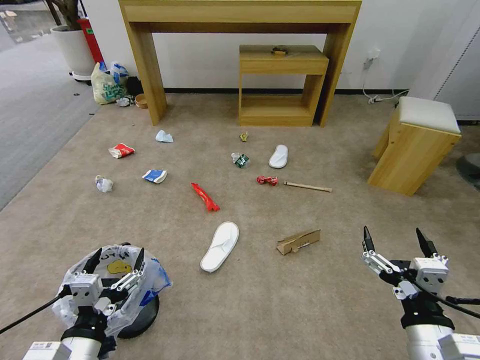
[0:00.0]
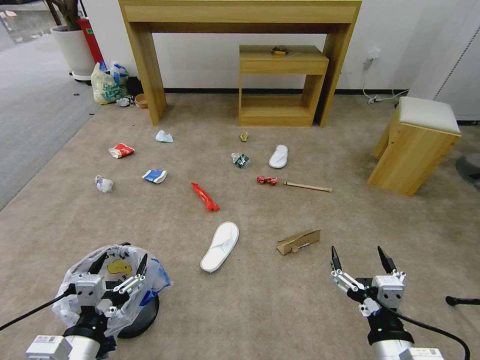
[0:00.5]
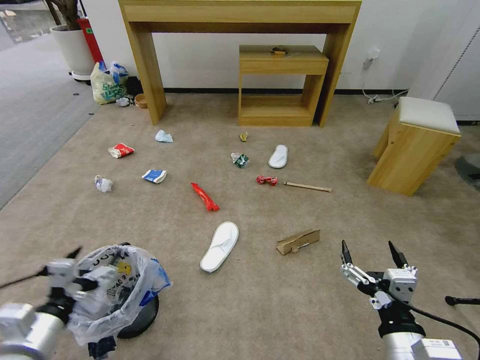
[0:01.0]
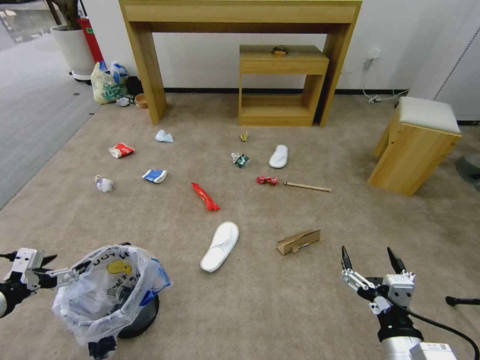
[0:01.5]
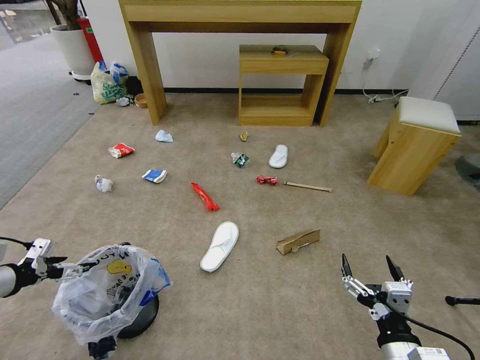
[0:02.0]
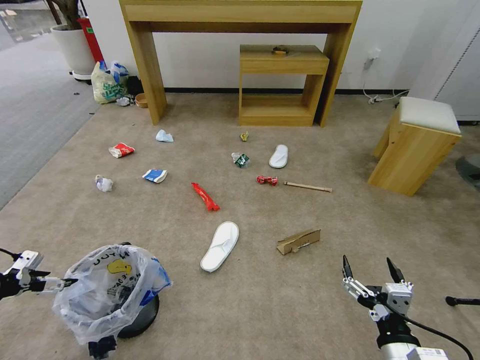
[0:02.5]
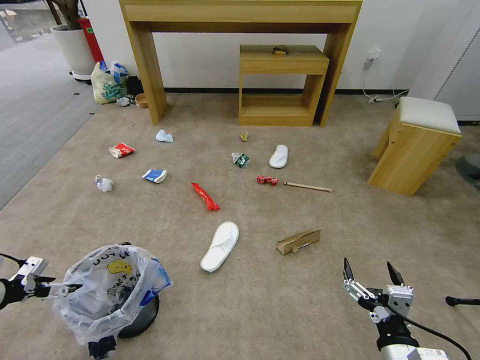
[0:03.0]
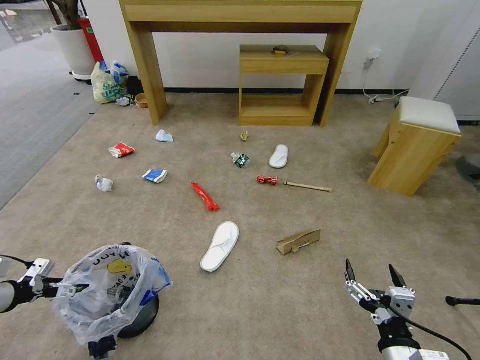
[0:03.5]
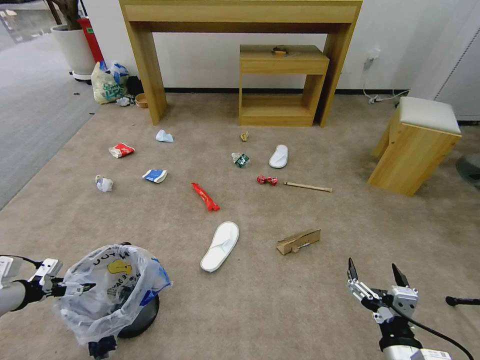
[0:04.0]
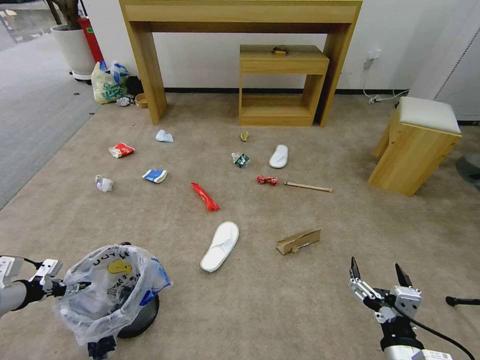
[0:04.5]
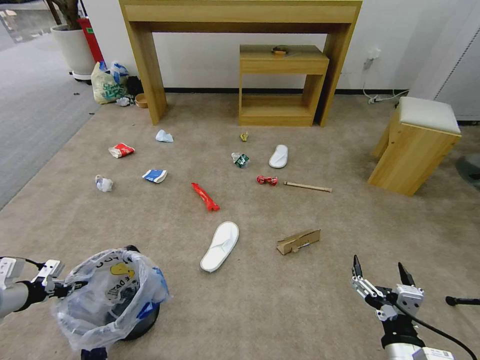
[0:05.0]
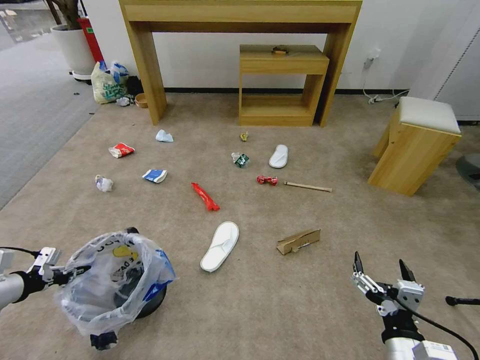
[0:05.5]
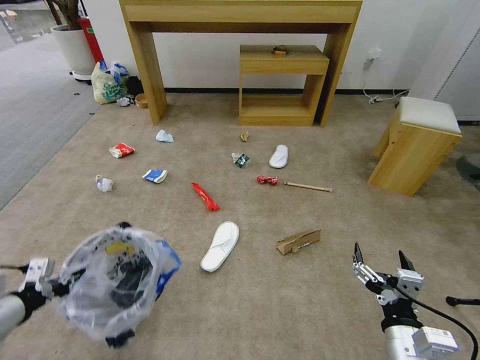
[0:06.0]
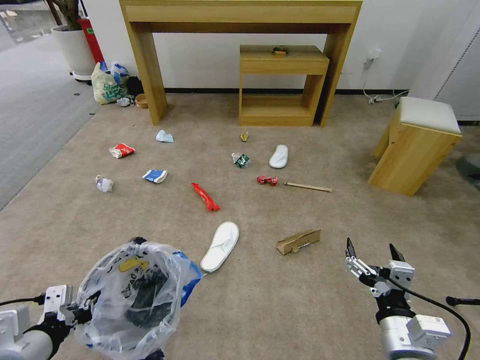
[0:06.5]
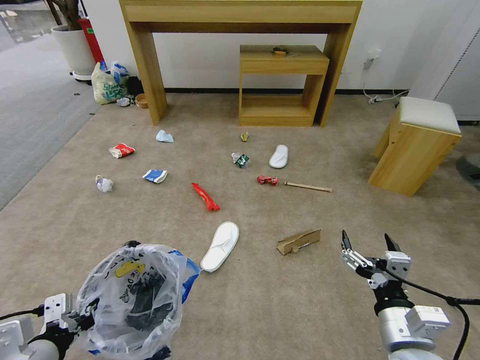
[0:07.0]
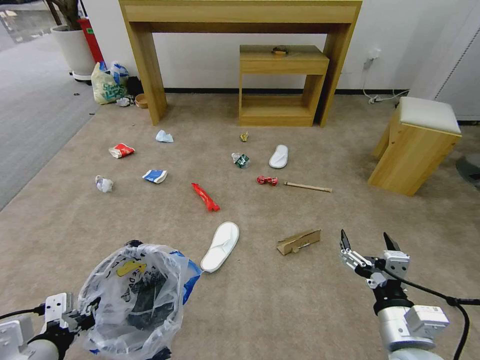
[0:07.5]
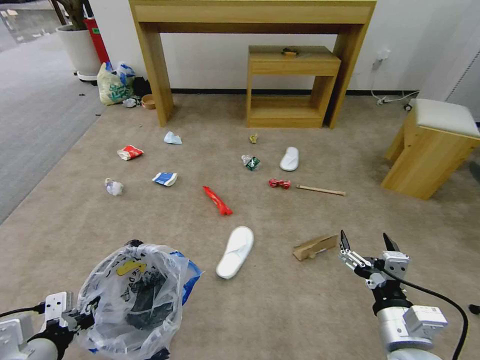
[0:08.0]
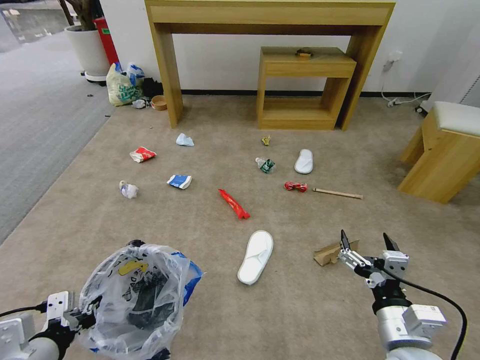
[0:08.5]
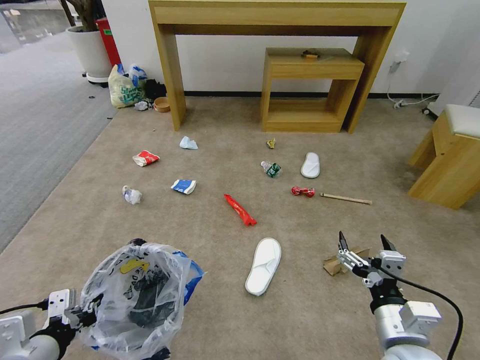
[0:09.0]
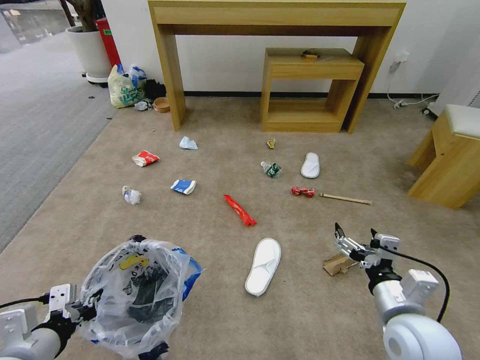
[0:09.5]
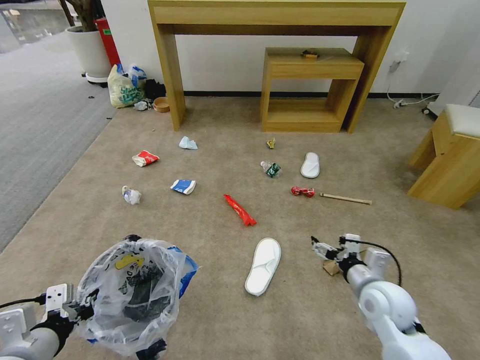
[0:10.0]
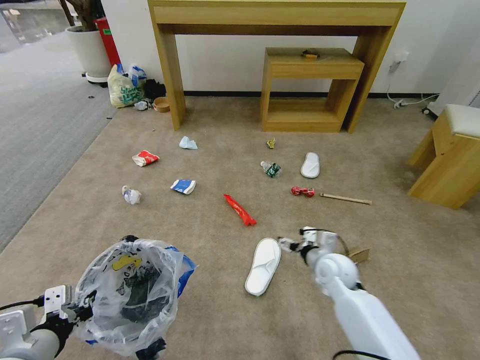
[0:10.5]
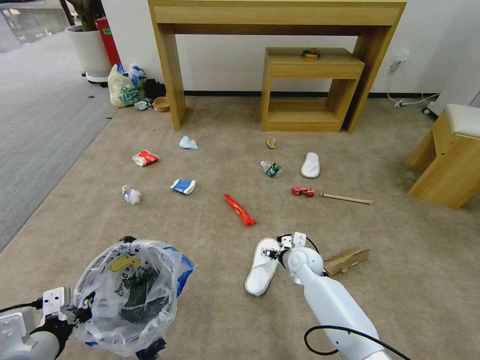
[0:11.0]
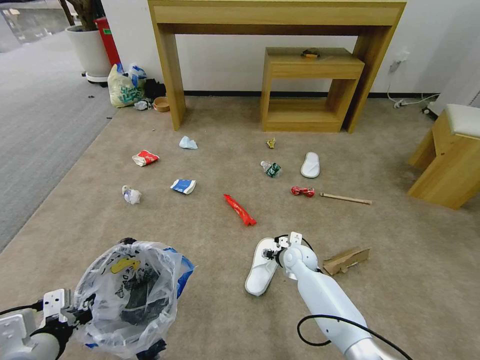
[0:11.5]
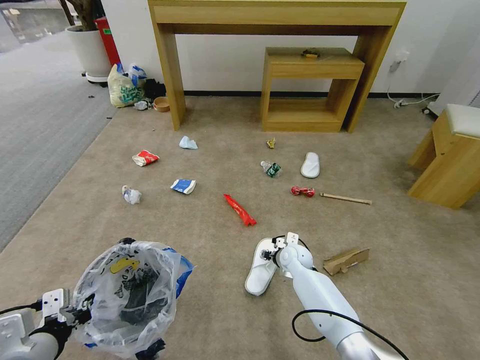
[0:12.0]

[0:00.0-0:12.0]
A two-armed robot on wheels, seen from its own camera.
Task of the whole recording: Pick up the trash bin and place the garbage on the floor into it.
0:02.0 to 0:04.0: The left gripper travels downward by approximately 5 cm.
0:04.0 to 0:06.0: The left gripper goes about 10 cm to the right and backward, and closes up.
0:06.0 to 0:08.0: The left gripper moves to the right and backward, about 15 cm.
0:08.0 to 0:10.0: The right gripper is displaced forward by approximately 15 cm.
0:10.0 to 0:12.0: The right gripper moves forward, downward and to the left, approximately 25 cm, and closes up.

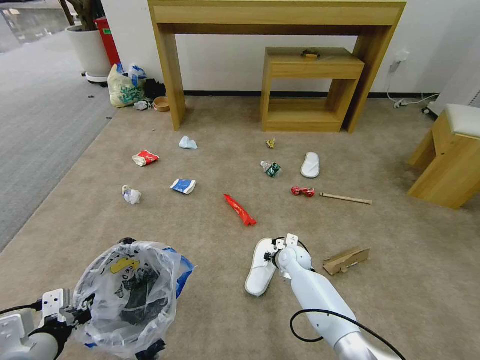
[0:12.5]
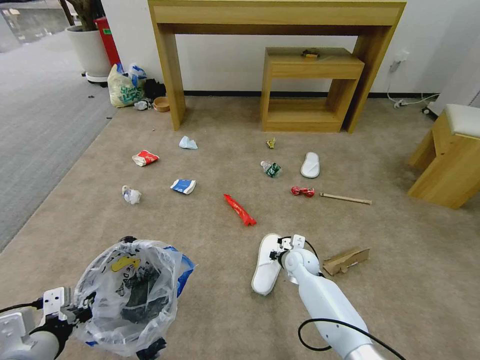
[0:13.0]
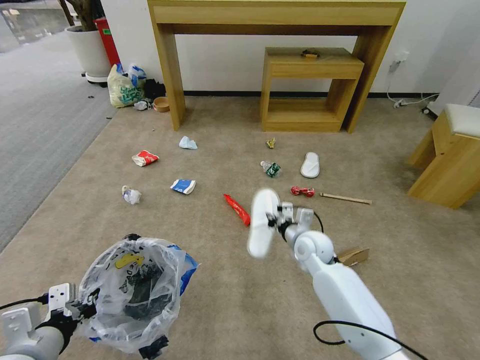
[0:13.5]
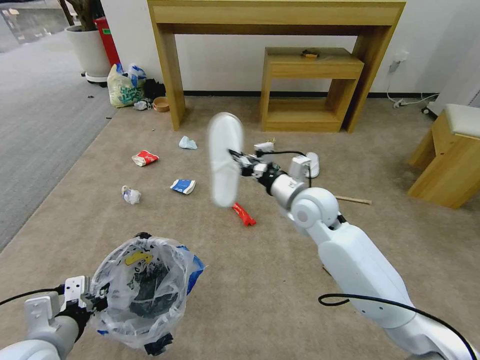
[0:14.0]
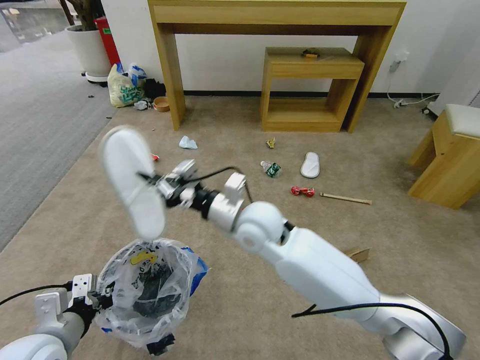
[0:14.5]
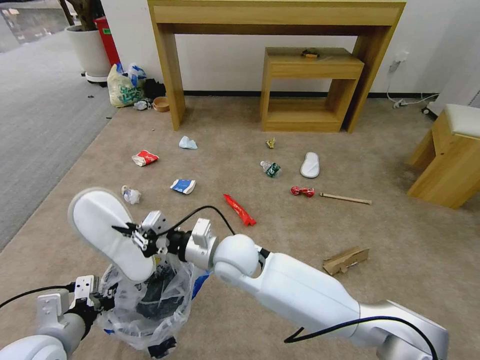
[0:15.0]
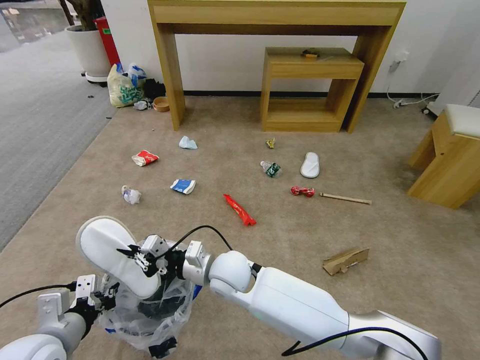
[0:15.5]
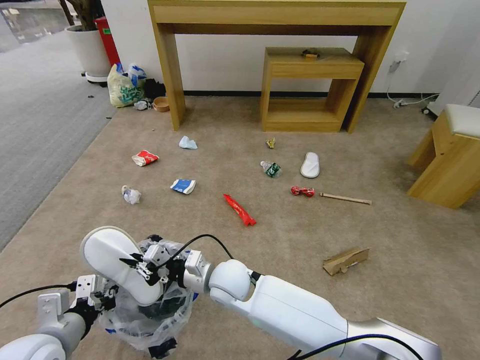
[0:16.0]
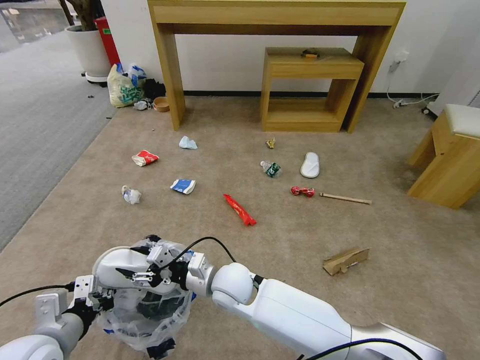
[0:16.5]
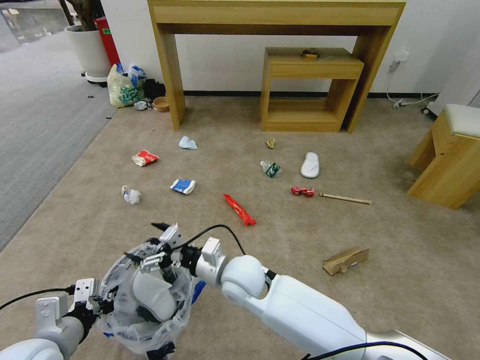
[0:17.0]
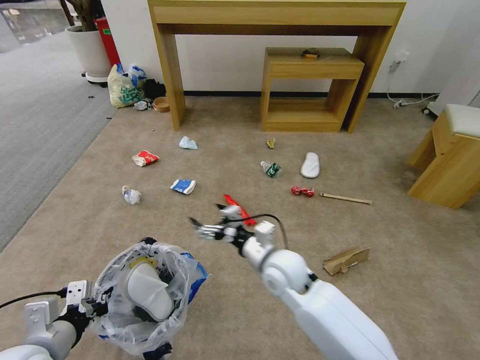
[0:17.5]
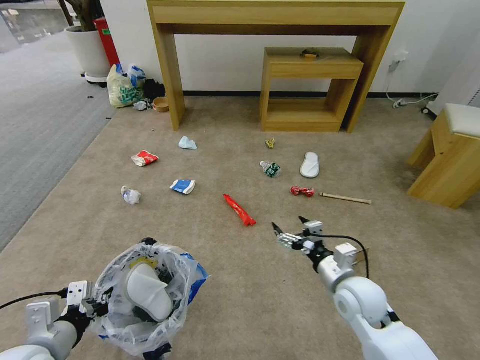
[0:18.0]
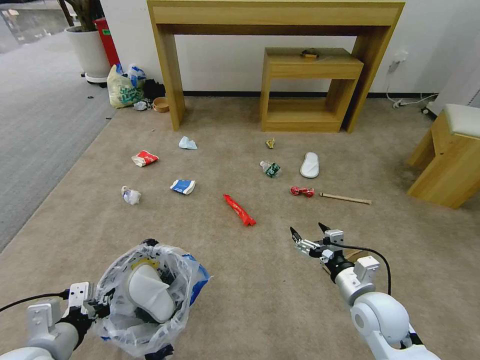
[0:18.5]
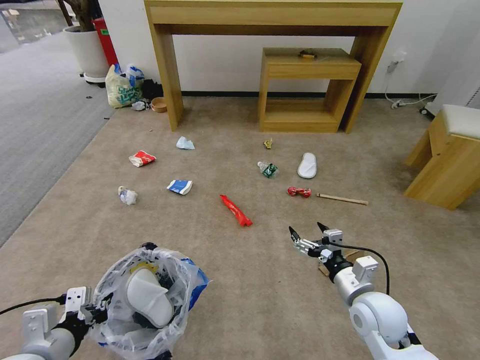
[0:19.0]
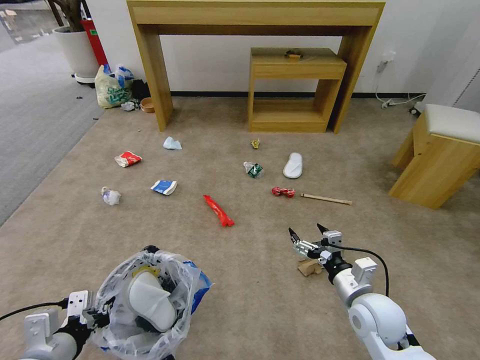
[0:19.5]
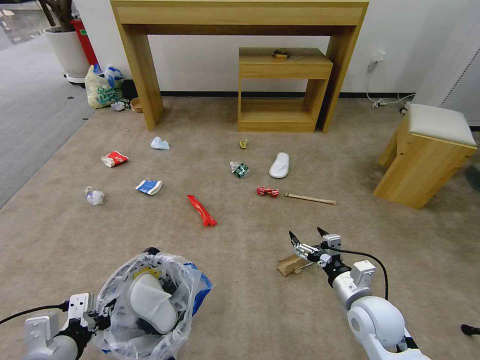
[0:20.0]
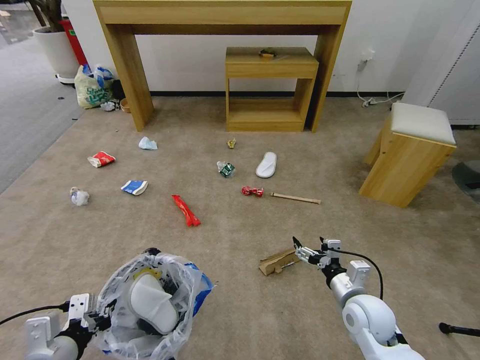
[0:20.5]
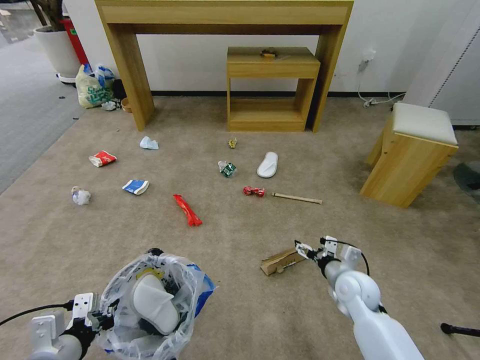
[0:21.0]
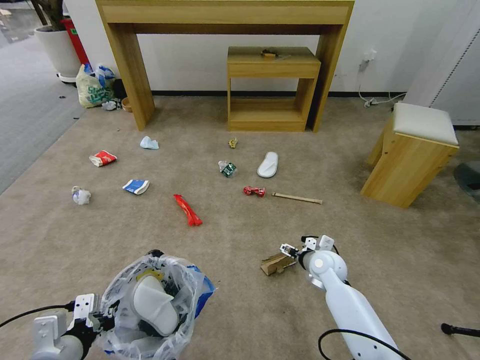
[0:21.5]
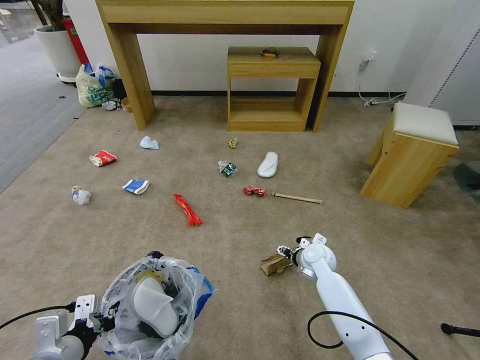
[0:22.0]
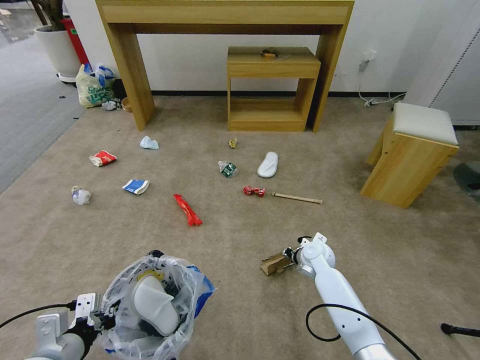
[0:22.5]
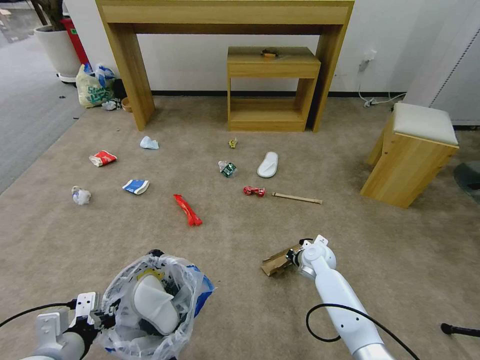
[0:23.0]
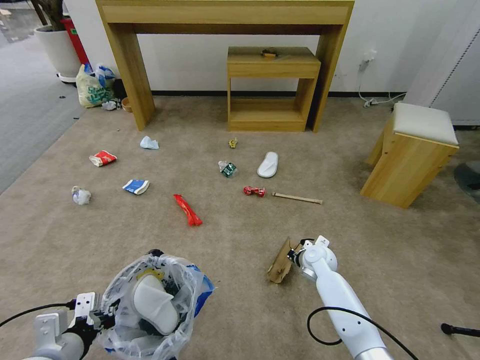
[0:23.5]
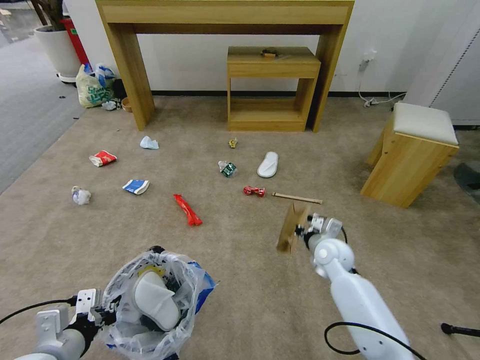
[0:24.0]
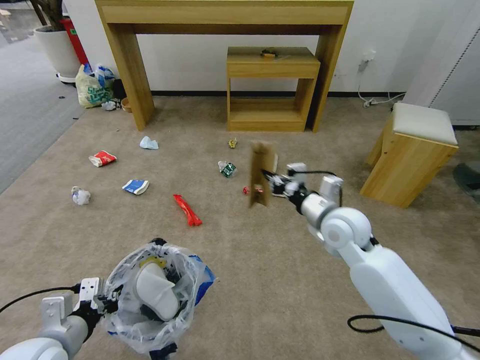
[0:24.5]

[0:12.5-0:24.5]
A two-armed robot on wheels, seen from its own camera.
Task of the whole recording: Pick up the trash bin and place the garbage on the floor into it.
0:12.5 to 0:14.5: The right gripper heads upward and to the left, covering approximately 30 cm.
0:14.5 to 0:16.5: The right gripper heads downward and backward, covering about 15 cm, and opens.
0:16.5 to 0:18.5: The right gripper goes some 30 cm to the right, and opens its fingers.
0:20.5 to 0:22.5: The right gripper goes some 20 cm forward, and closes up.
0:22.5 to 0:24.5: The right gripper goes about 20 cm upward, and closes.

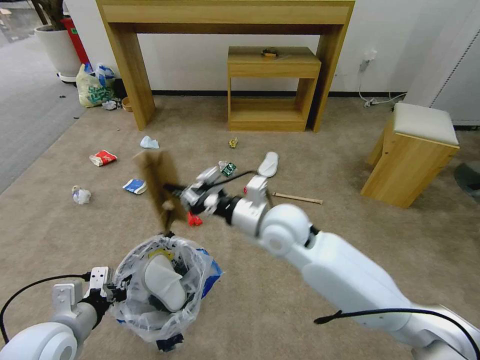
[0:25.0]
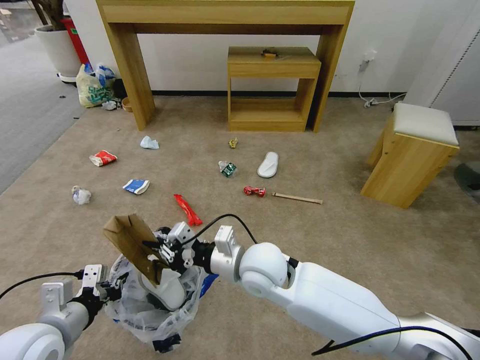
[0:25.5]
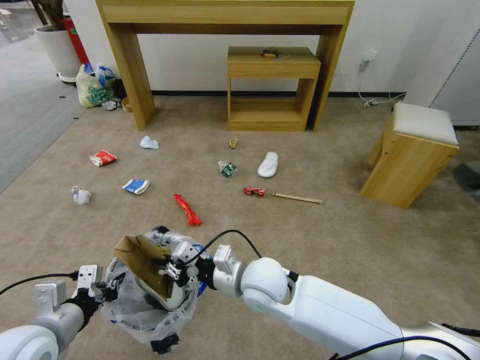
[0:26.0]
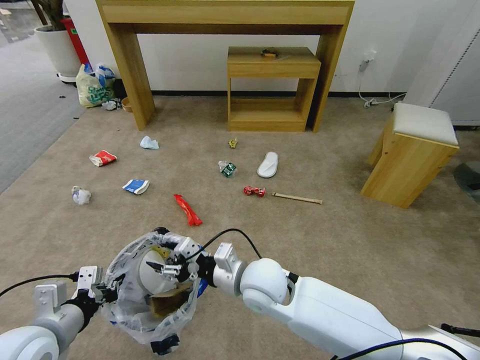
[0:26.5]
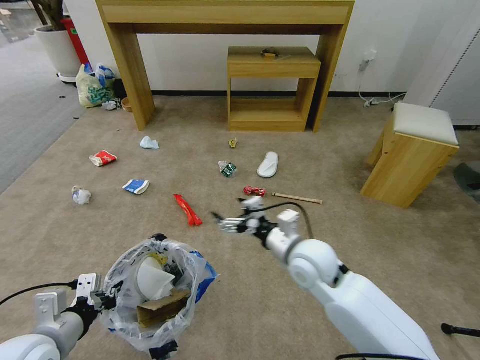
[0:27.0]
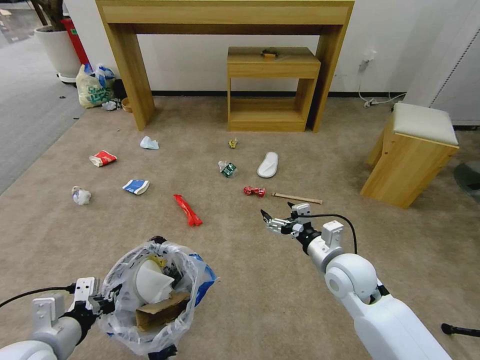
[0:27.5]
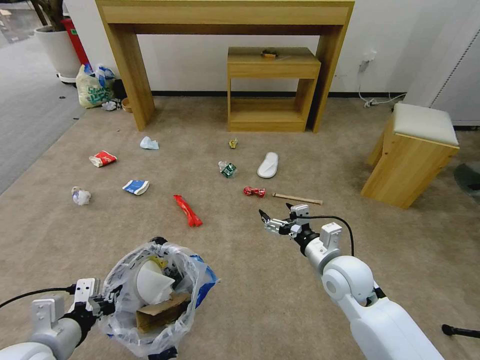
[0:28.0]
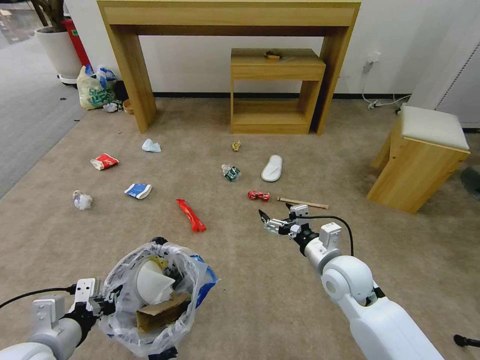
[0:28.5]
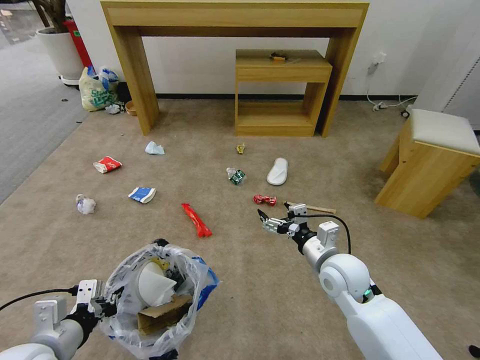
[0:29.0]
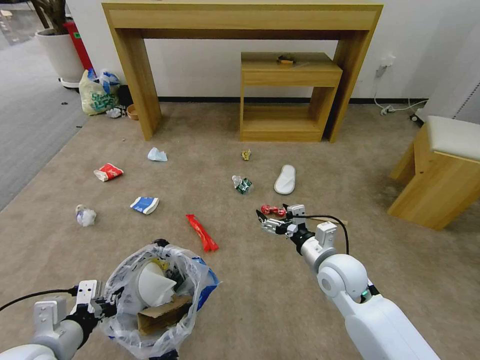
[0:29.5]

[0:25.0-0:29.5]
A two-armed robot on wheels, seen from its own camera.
Task of the whole recording: Pick up the trash bin and place the garbage on the floor into it.
0:25.0 to 0:27.0: The right gripper travels downward by some 5 cm, and opens up.
0:27.0 to 0:29.5: The right gripper is displaced to the right by some 10 cm.
